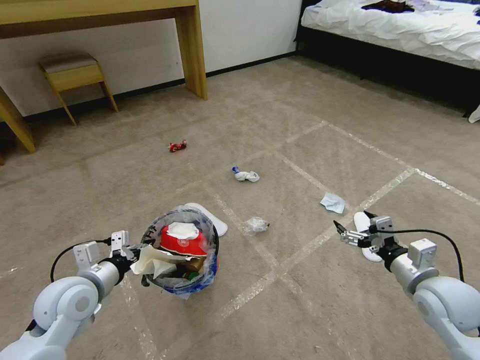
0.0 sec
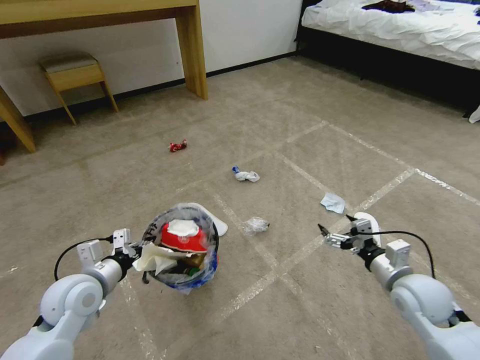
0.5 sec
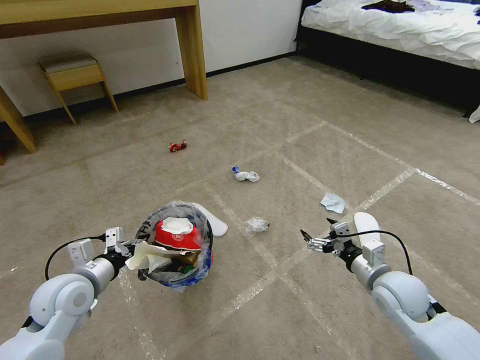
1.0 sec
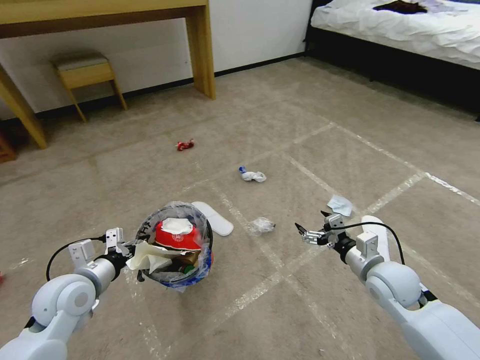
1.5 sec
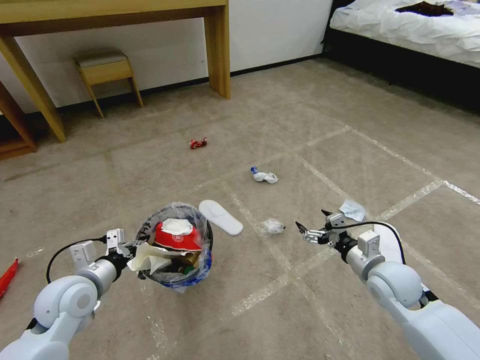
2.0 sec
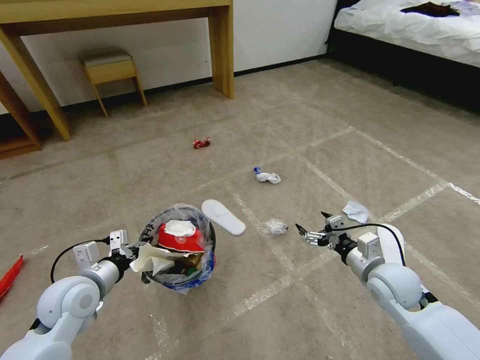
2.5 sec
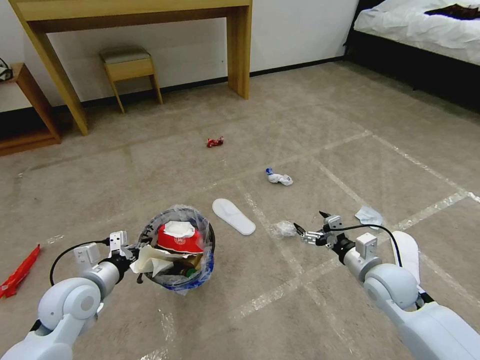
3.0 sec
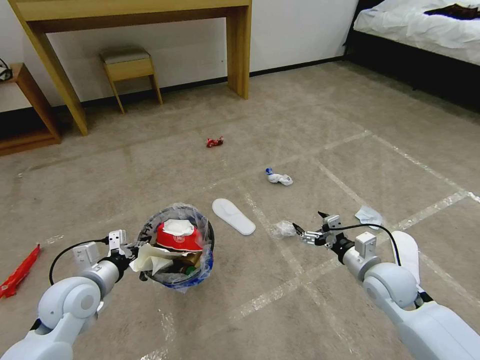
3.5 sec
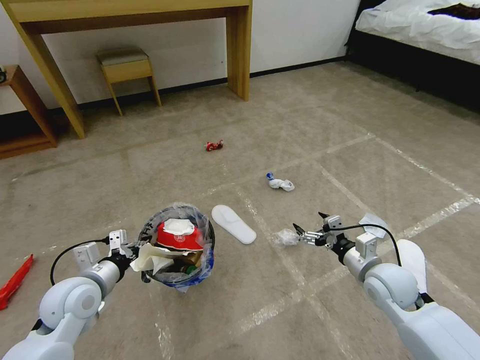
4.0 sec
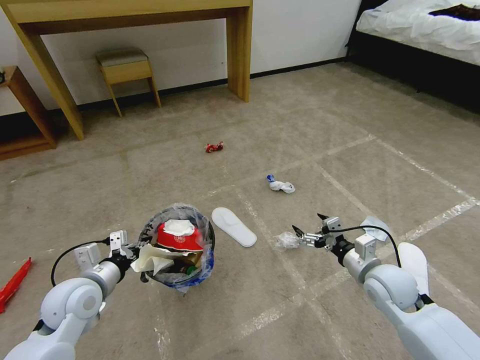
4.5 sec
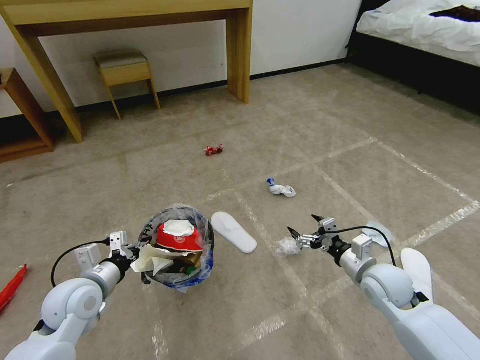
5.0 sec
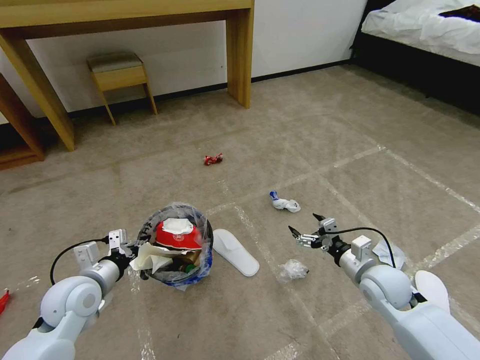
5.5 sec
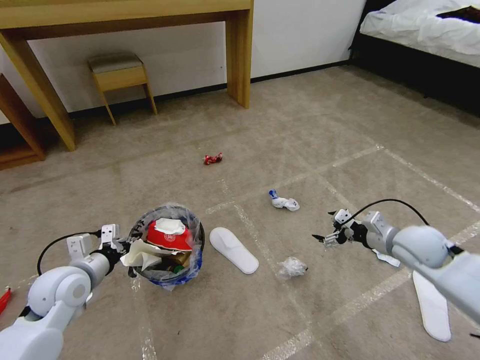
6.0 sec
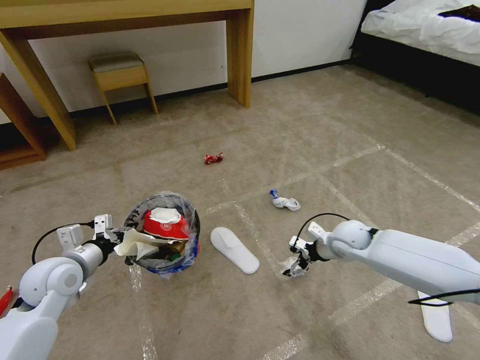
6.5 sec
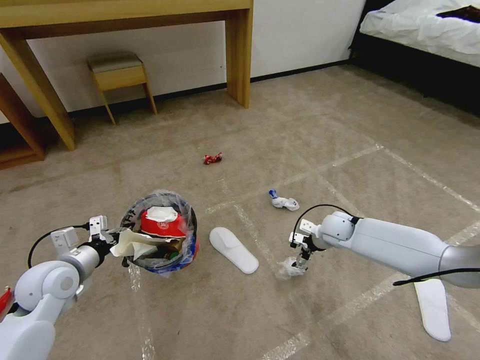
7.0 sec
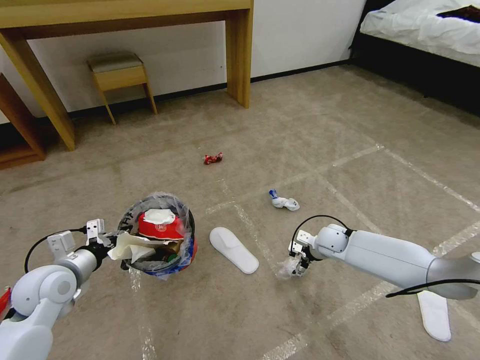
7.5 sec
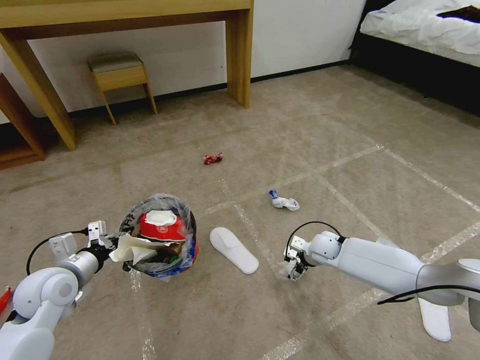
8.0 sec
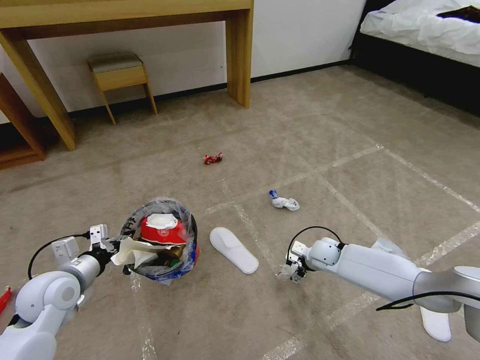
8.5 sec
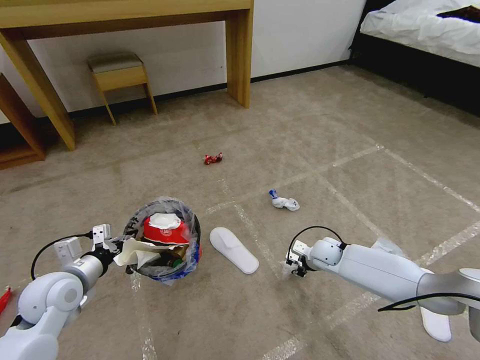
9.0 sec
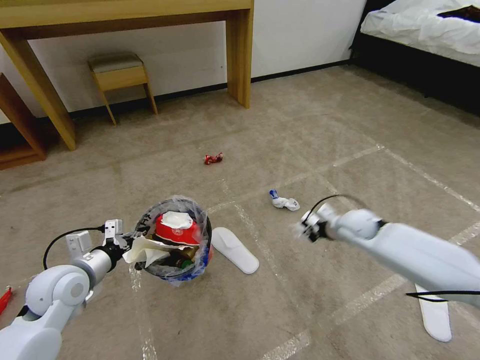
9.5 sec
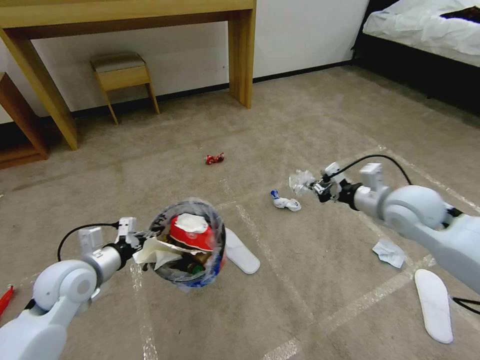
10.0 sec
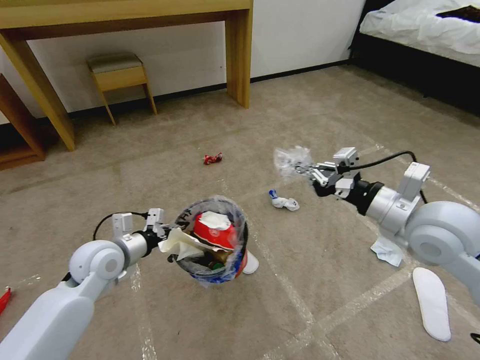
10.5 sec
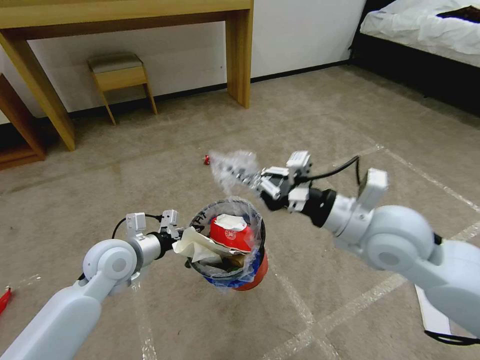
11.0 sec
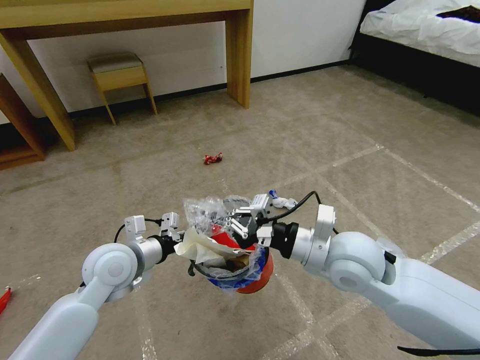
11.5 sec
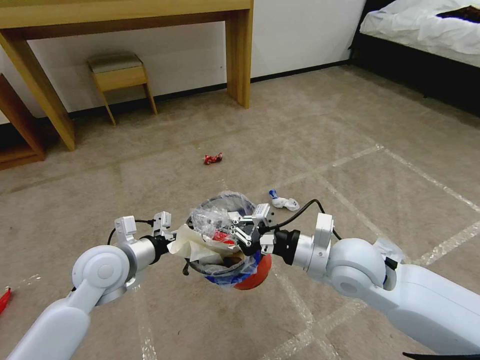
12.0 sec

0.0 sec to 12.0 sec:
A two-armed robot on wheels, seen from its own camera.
Task of the whole recording: Pick up the trash bin and place the garbage on the floor into it.
0.0 sec to 2.0 sec: The right gripper travels to the left and forward by roughly 10 cm.
4.0 sec to 6.0 sec: The right gripper moves to the right, forward and upward, about 10 cm.
6.0 sec to 8.0 sec: The right gripper shifts some 25 cm downward, to the left and forward.
8.0 sec to 10.0 sec: The right gripper goes roughly 25 cm upward, and closes its fingers.
10.0 sec to 12.0 sec: The left gripper heads to the right, covering some 10 cm. The right gripper moves to the left and backward, about 20 cm.

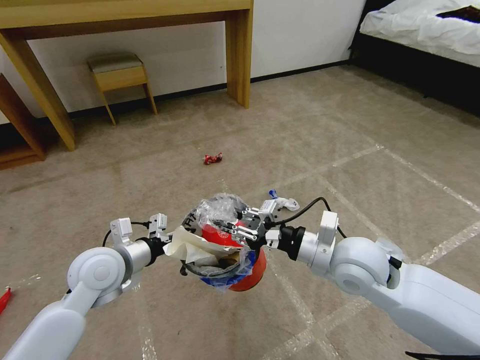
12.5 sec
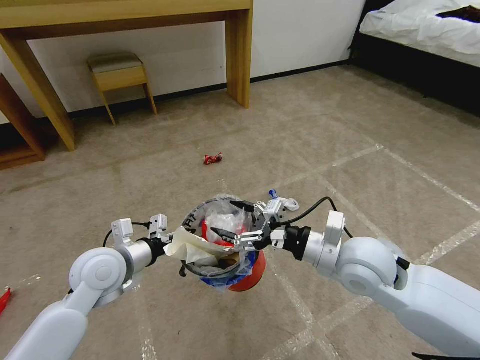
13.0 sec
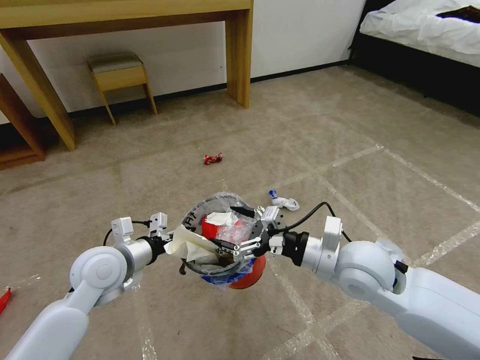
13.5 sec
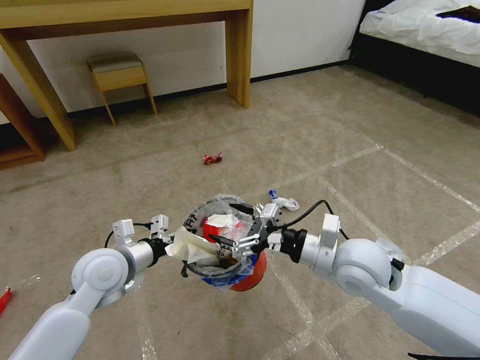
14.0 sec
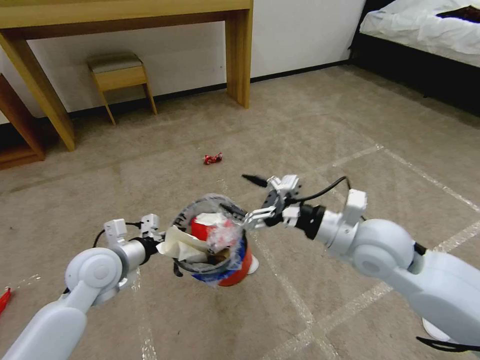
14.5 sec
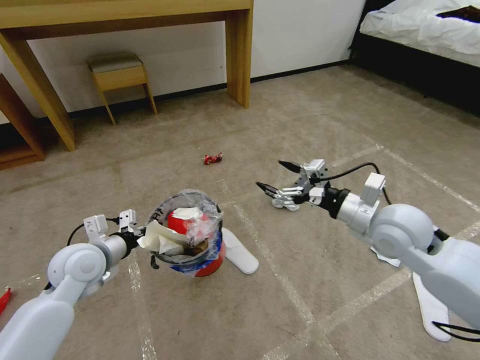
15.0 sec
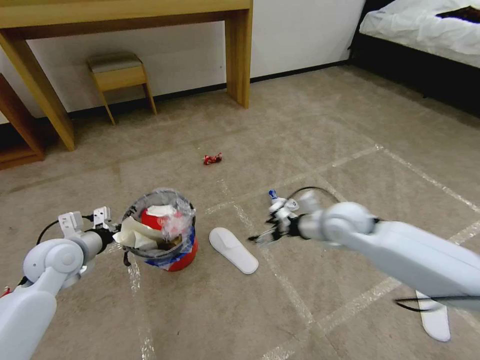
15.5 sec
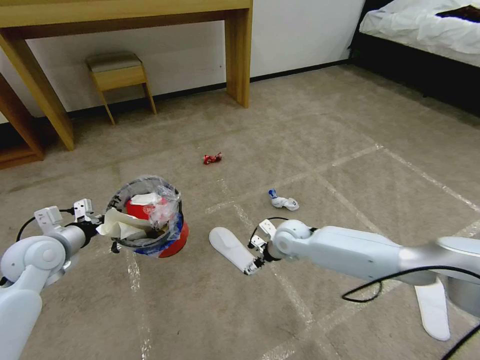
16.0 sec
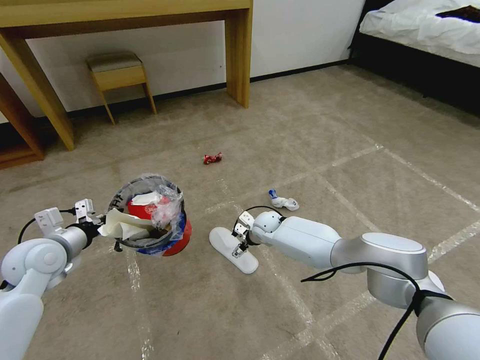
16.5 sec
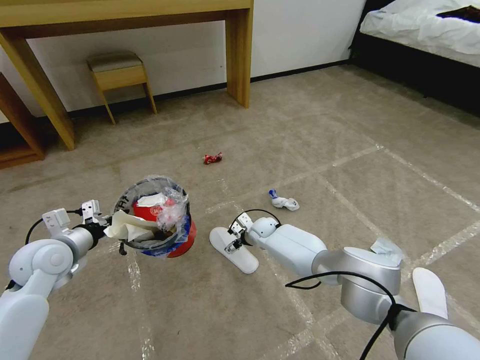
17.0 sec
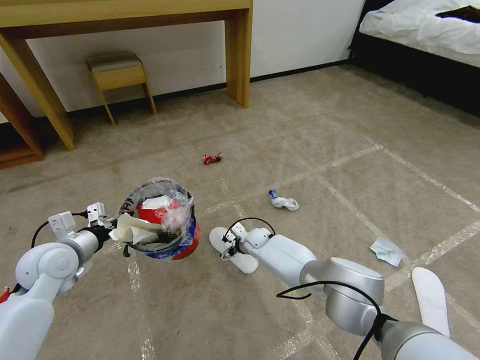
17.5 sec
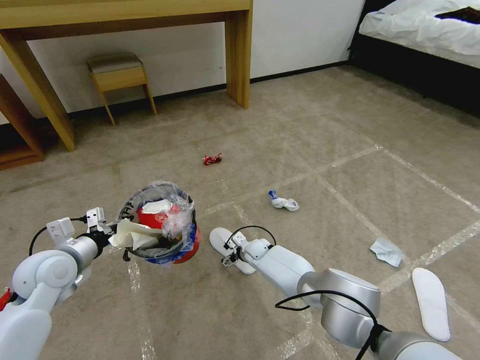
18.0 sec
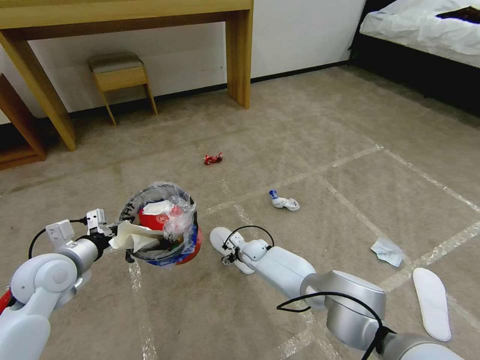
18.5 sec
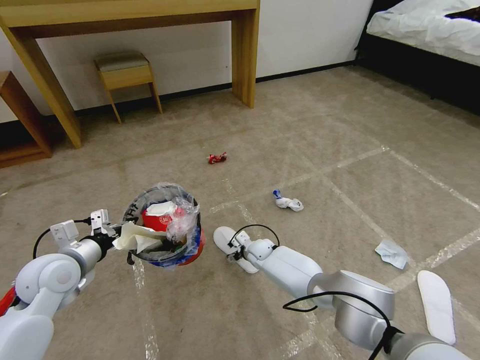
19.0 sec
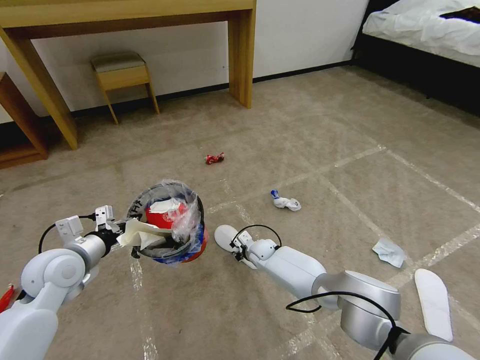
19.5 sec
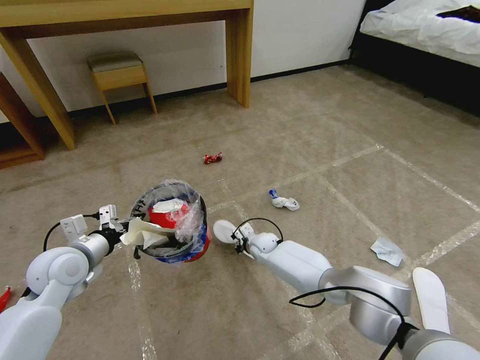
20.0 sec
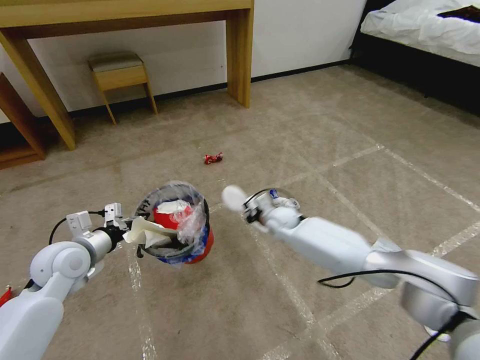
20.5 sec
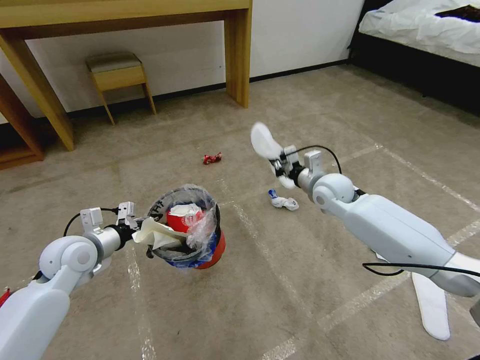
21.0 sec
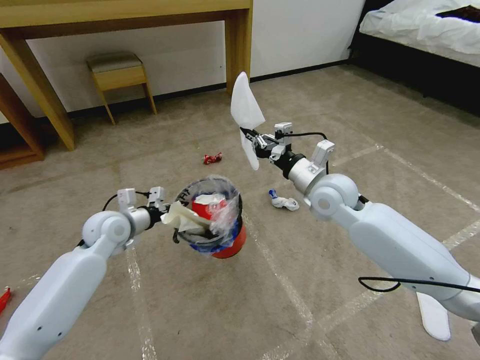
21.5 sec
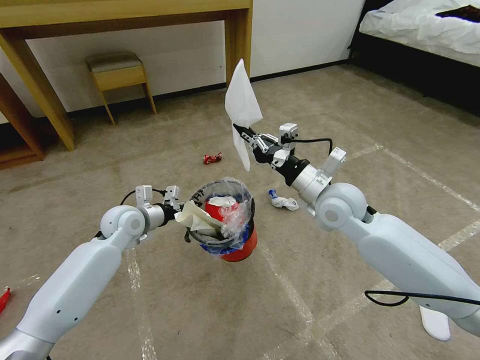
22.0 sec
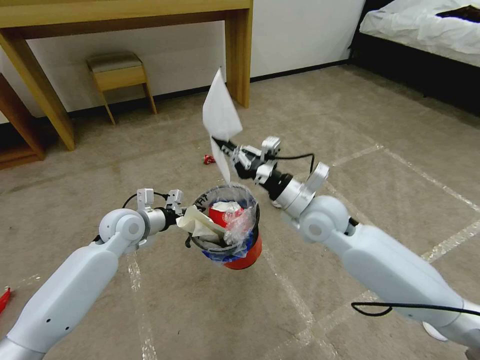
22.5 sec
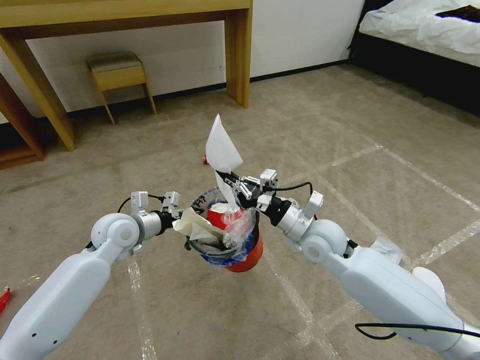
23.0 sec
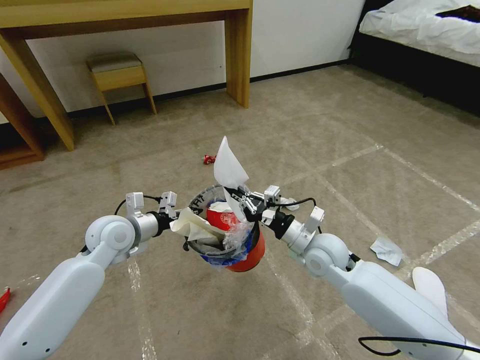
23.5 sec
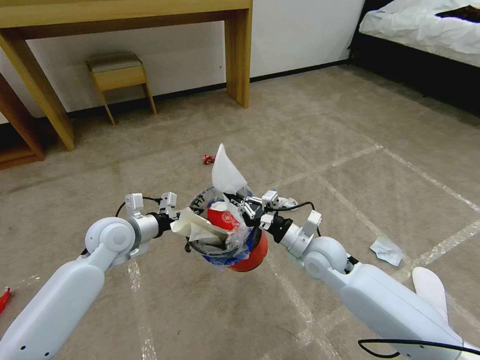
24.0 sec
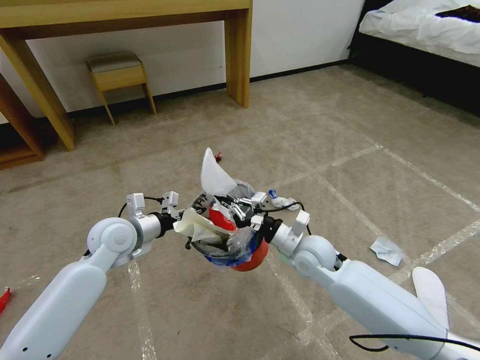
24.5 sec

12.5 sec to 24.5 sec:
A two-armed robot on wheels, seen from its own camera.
Task of the whole recording: Pick up the trash bin and place the garbage on the floor into it.
12.5 sec to 14.5 sec: The right gripper opens.
14.5 sec to 16.5 sec: The left gripper shifts some 15 cm to the left; the right gripper moves downward, forward and to the left, roughly 35 cm.
16.5 sec to 18.5 sec: The right gripper shifts about 10 cm downward.
18.5 sec to 20.5 sec: The right gripper moves upward and to the right, roughly 15 cm, and closes.
20.5 sec to 22.5 sec: The left gripper shifts about 15 cm forward and to the right; the right gripper travels upward and backward by some 20 cm.
22.5 sec to 24.5 sec: The right gripper travels downward by about 10 cm.

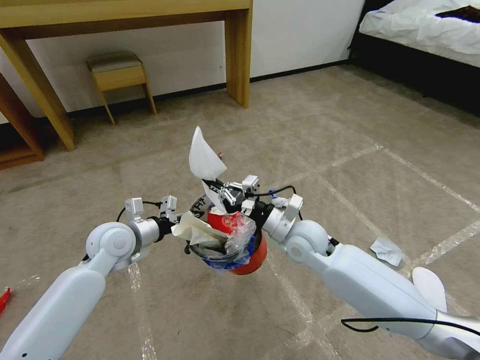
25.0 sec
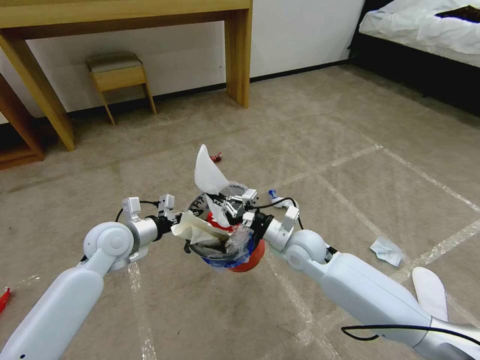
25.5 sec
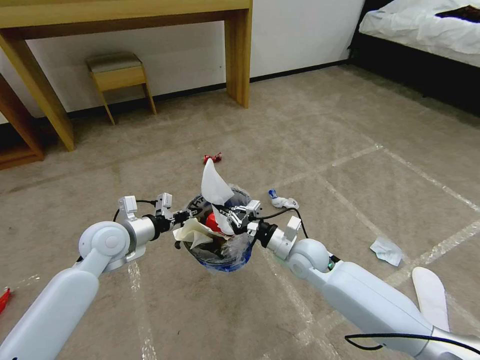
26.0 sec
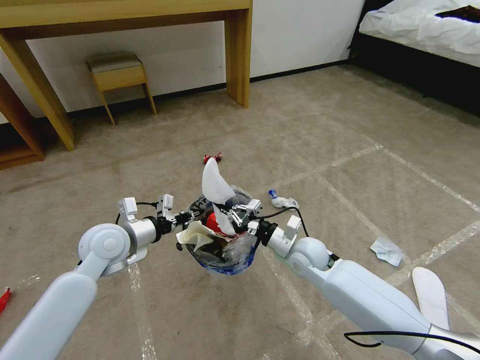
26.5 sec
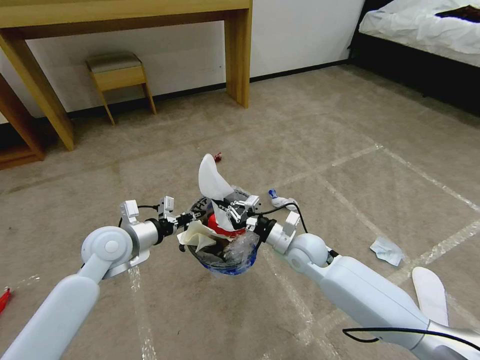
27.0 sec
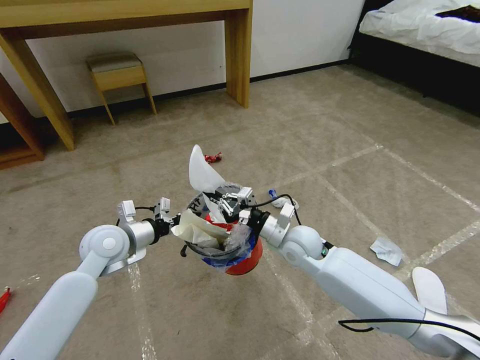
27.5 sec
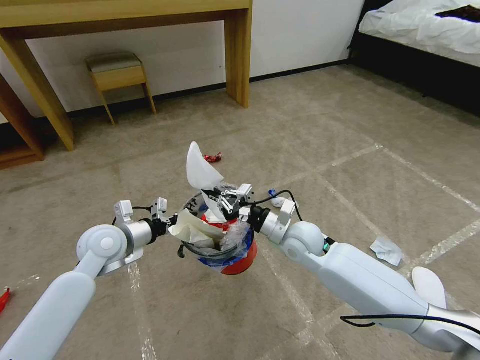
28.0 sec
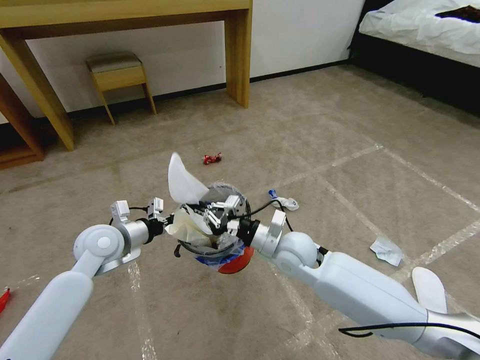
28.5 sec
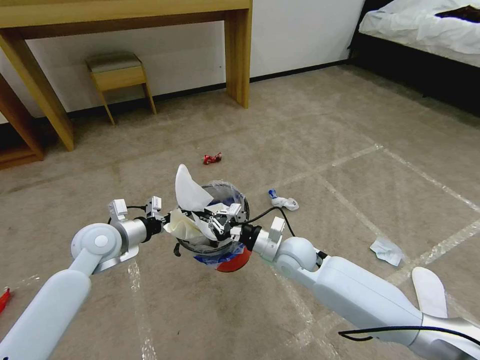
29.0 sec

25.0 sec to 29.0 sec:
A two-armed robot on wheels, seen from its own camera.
Task of the whole recording: Pick up the trash bin and place the garbage on the floor into it.
25.0 sec to 27.0 sec: The right gripper moves downward, some 5 cm.
